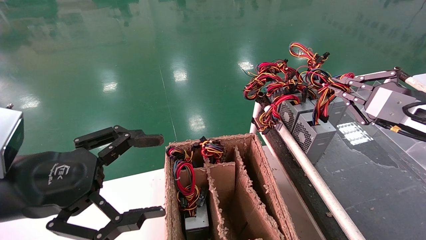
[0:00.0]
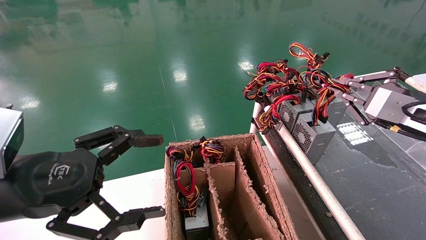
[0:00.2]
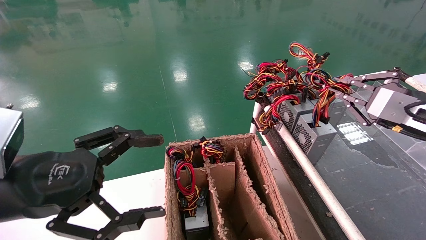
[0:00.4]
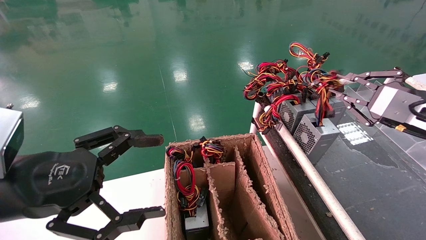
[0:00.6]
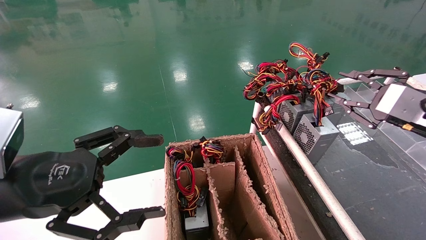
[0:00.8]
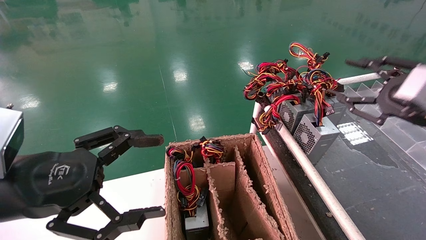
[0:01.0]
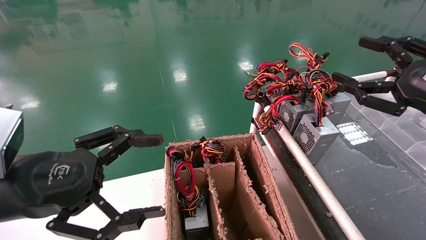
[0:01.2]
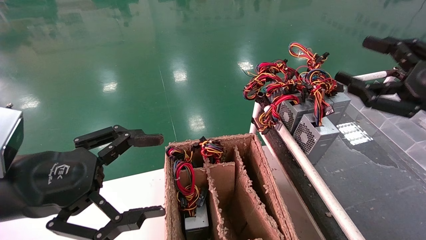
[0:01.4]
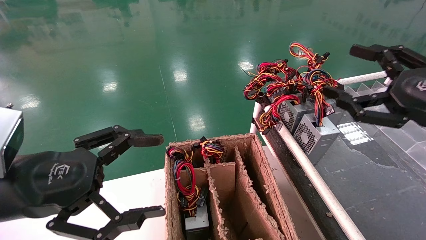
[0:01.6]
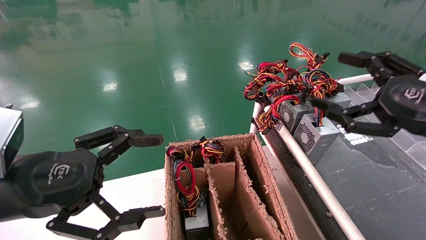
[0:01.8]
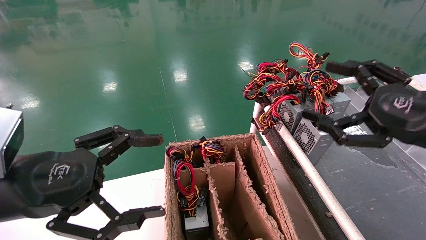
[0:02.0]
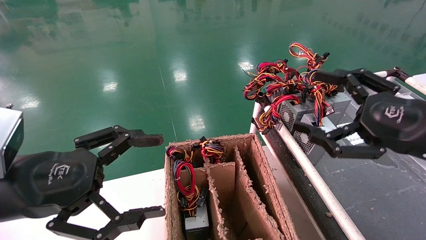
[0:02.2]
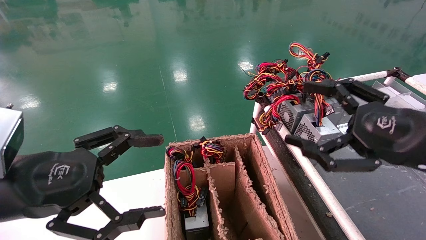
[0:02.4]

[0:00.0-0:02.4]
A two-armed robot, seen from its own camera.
0:00.0 to 0:01.2: The right gripper ends up some 5 cm from where it was, and opens its fingers.
0:01.2 to 0:02.4: The right gripper moves to the left, approximately 5 cm, and opens up.
